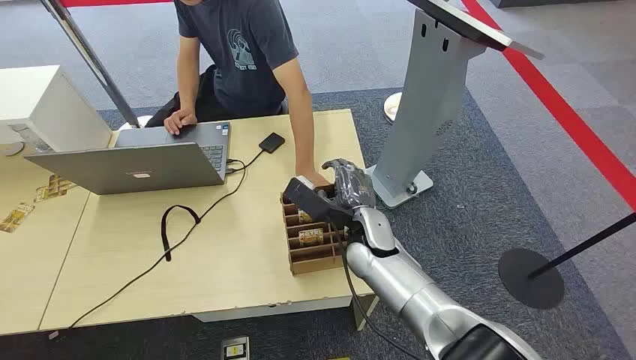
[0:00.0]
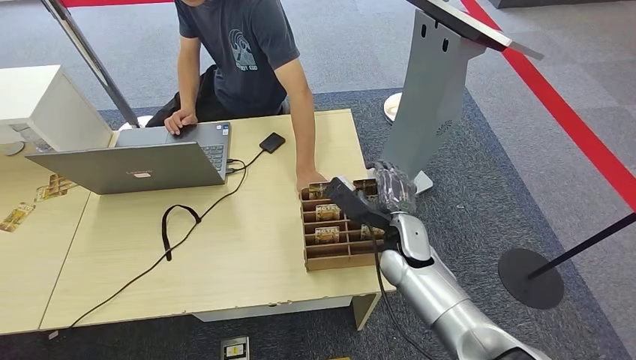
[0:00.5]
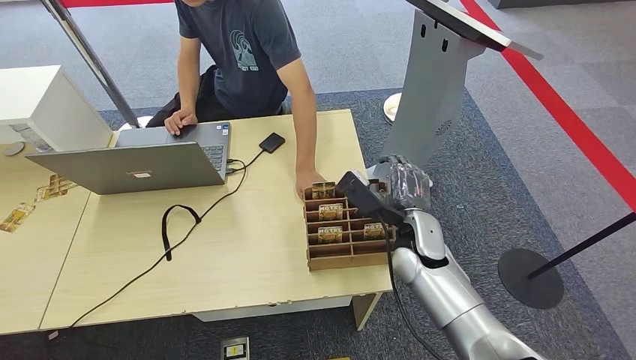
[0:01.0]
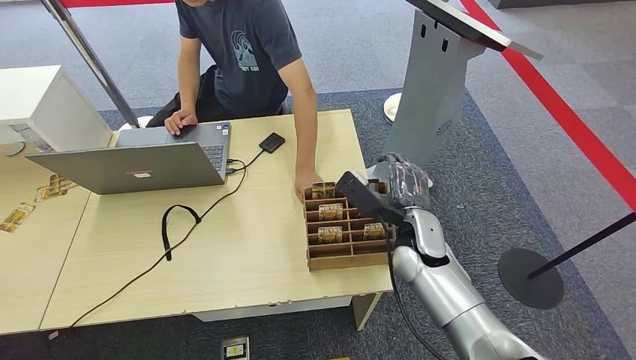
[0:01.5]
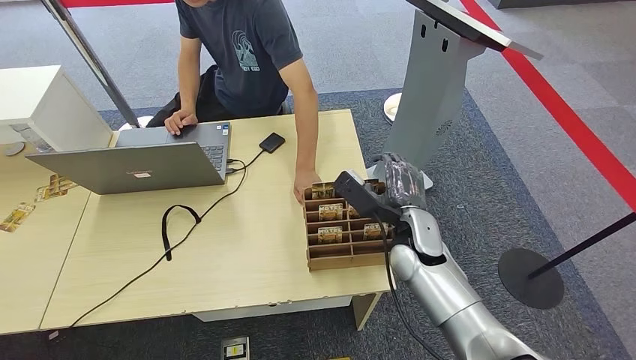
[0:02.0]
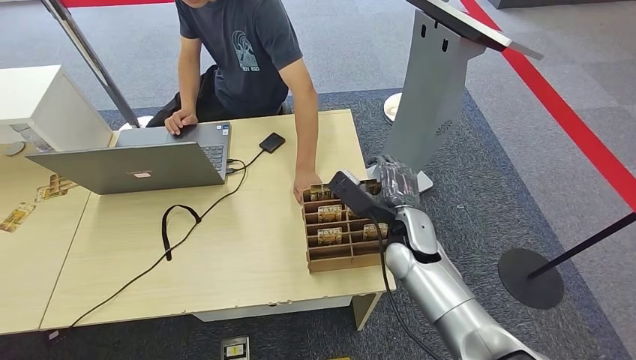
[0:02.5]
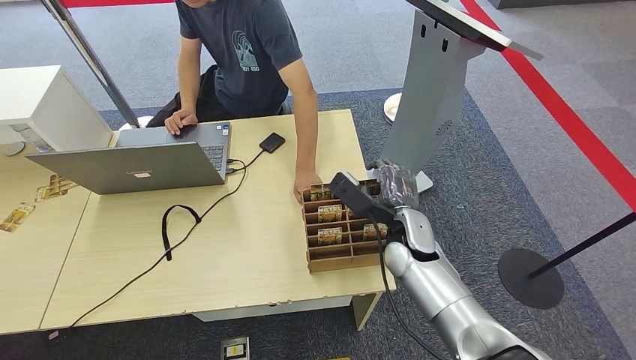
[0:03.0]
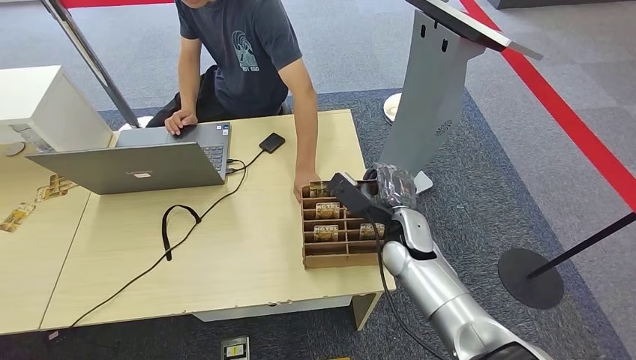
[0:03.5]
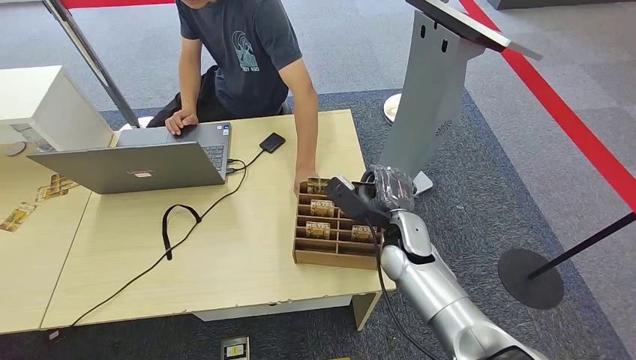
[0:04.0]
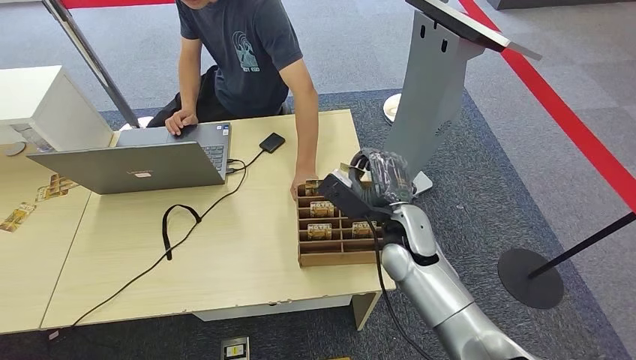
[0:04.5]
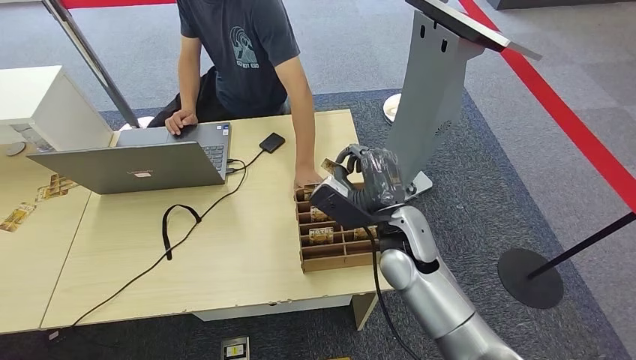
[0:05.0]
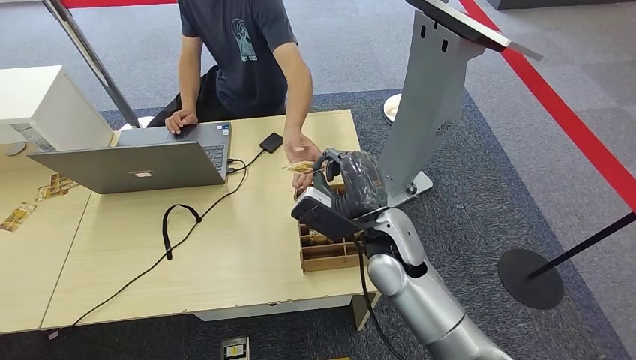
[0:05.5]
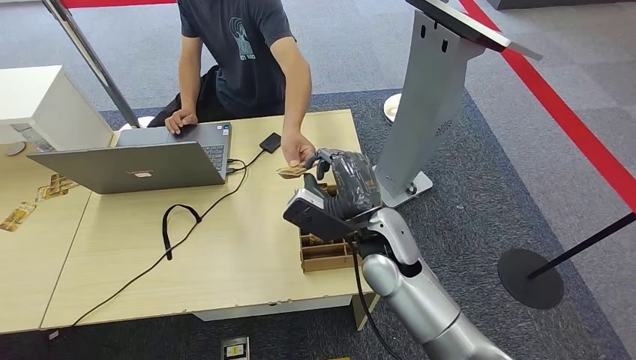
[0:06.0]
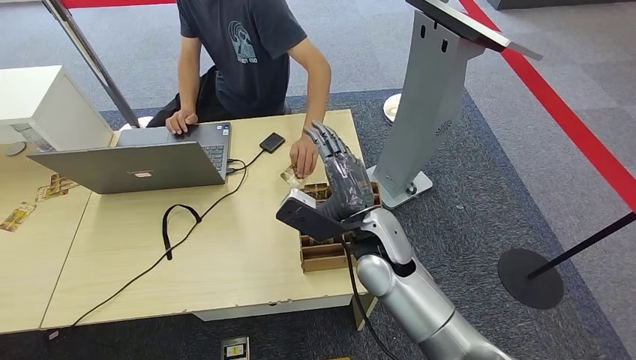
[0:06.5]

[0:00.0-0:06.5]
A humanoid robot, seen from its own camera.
Step, 0:00.0 to 0:04.5: Pick up the room card from the card holder.
Step, 0:05.0 to 0:06.5: Hand the room card to the target.
0:02.0 to 0:04.5: There are only small adjustments of the hands.
0:04.5 to 0:06.5: The right hand goes roughly 5 cm to the left.

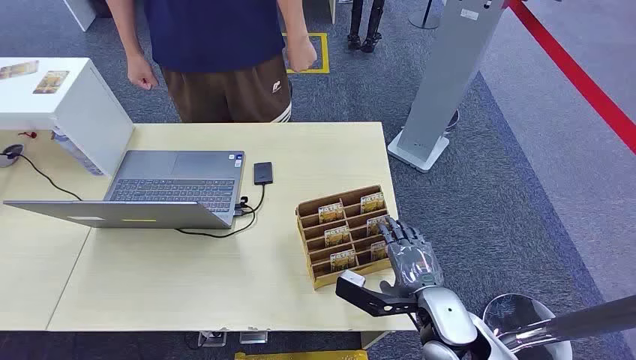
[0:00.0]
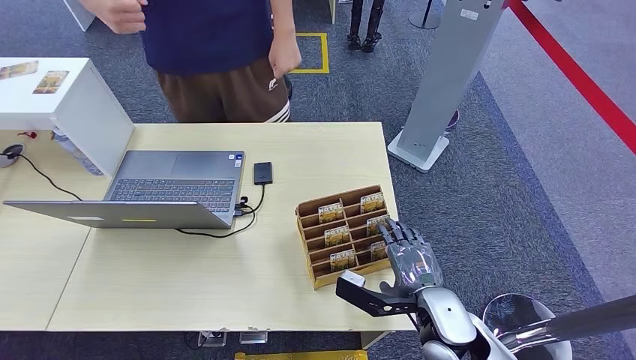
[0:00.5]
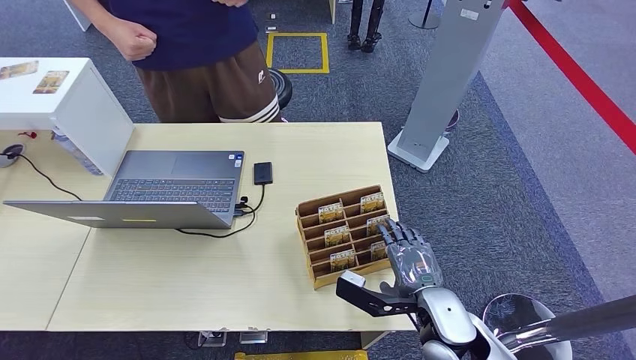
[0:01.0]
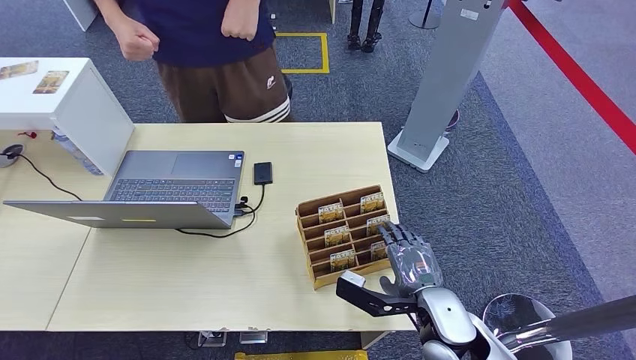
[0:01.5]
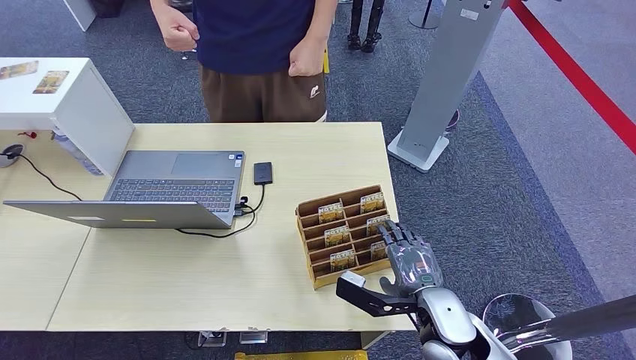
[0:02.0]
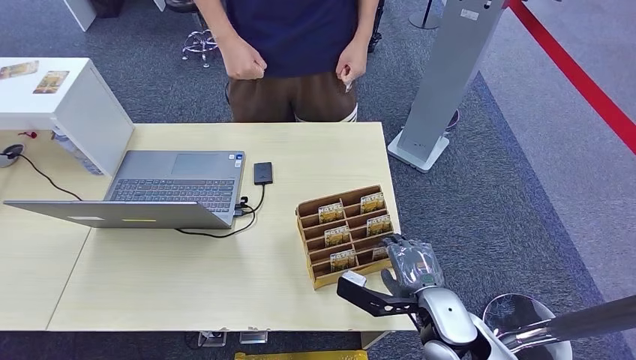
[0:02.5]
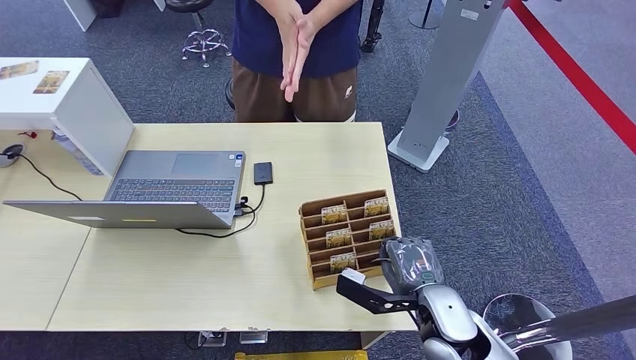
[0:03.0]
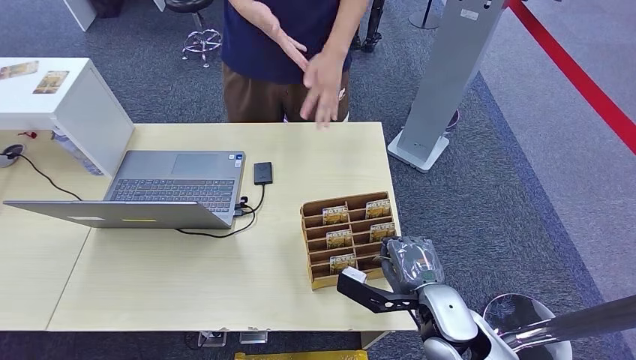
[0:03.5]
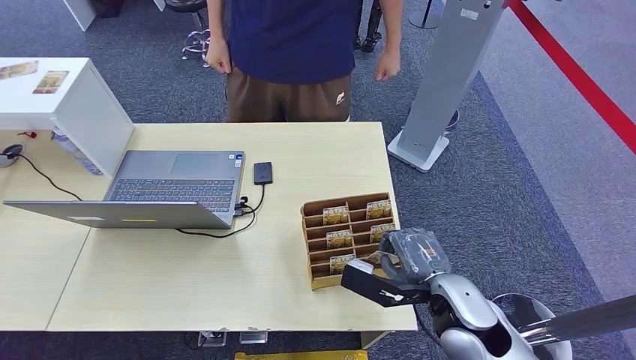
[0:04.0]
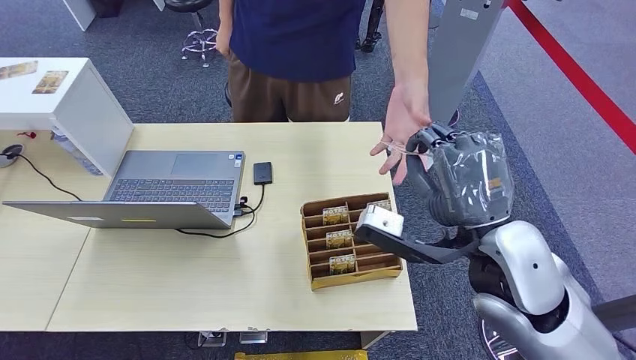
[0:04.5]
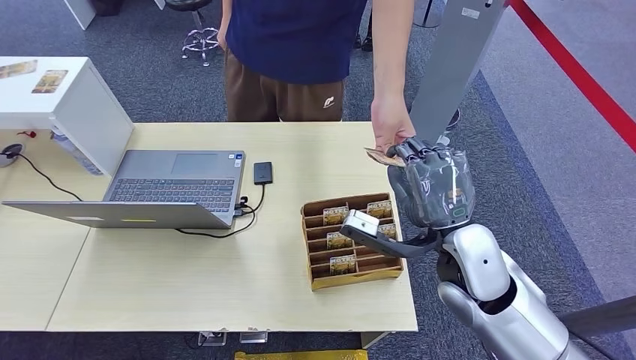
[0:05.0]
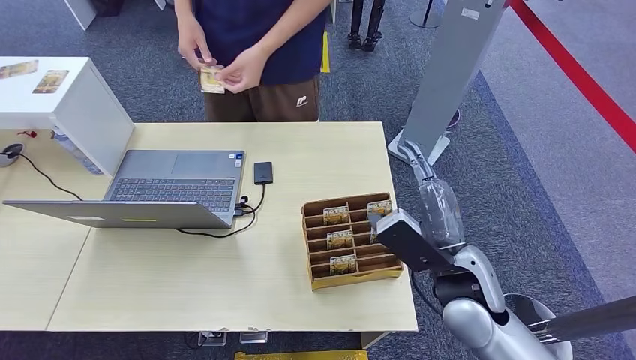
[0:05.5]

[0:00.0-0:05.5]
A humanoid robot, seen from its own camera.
Step, 0:00.0 to 0:02.0: Pick up the room card from the card holder.
Step, 0:02.5 to 0:05.5: Hand the room card to the target.
0:02.0 to 0:03.5: The two hands keep their place.
0:03.5 to 0:05.5: The right hand heads upward, covering some 10 cm.
